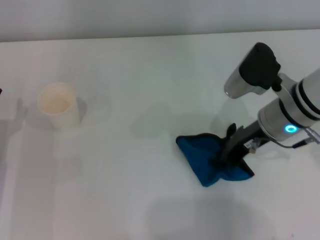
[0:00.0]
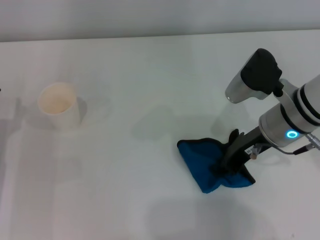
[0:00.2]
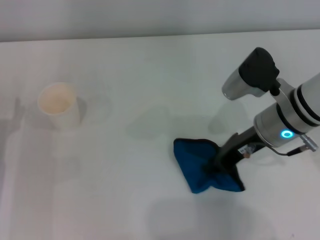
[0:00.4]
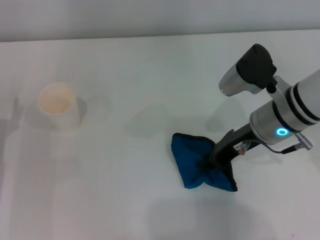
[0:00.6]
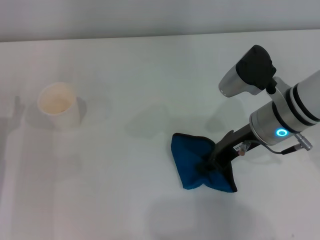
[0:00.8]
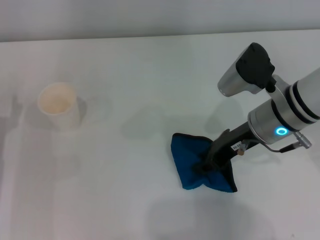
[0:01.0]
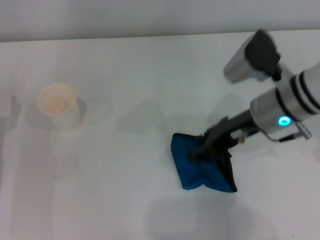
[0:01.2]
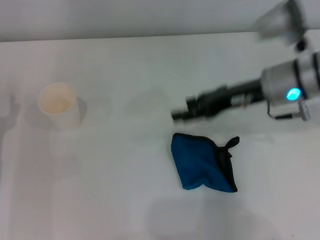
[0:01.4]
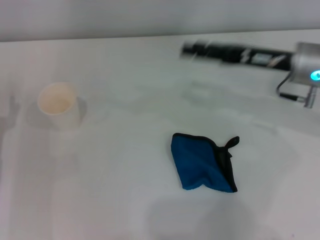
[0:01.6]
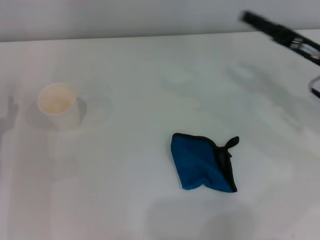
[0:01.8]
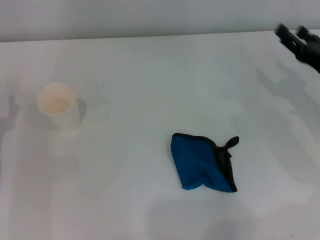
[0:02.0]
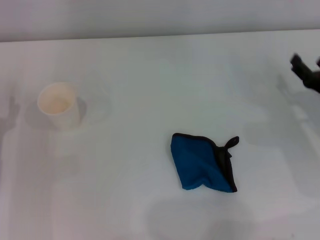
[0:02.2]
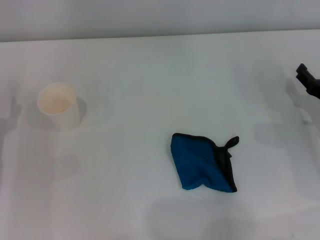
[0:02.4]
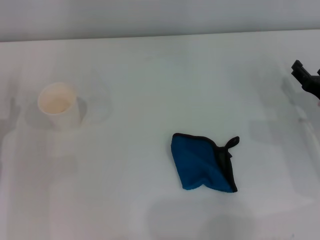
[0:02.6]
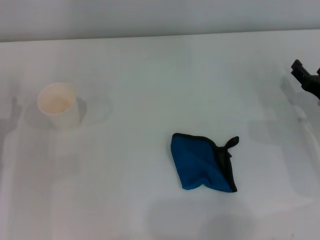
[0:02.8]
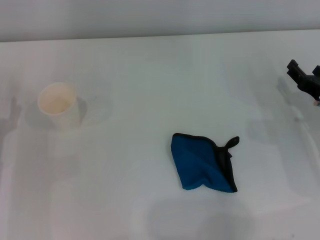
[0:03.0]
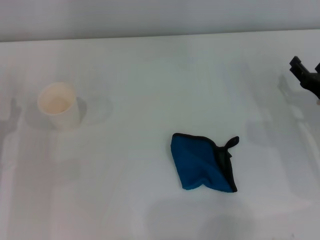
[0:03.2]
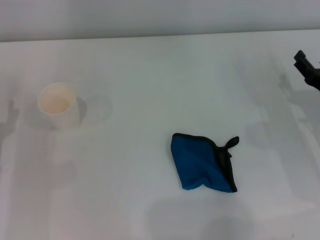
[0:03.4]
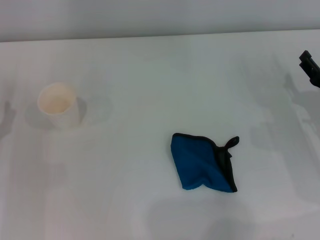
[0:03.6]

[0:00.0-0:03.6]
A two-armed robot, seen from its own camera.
Step, 0:00.2 to 0:01.0: Place the rag on the table with the right gripper.
0:00.0 to 0:01.8: The right gripper shifts approximately 10 cm to the right, and opens up.
0:01.8 to 0:03.6: The right gripper travels downward and backward by roughly 10 cm.
